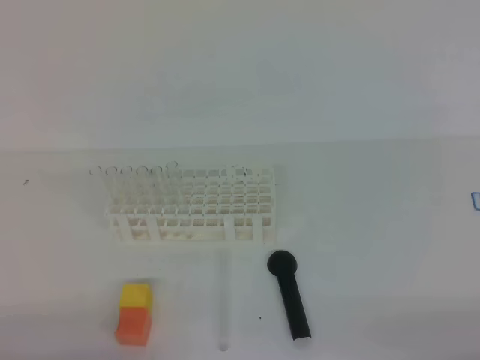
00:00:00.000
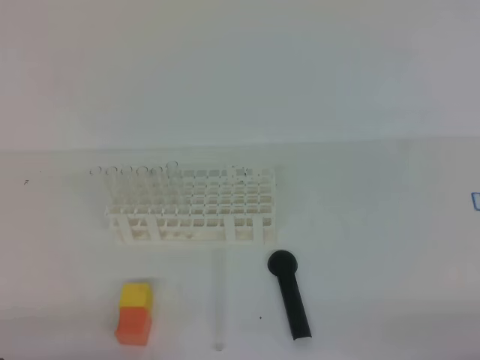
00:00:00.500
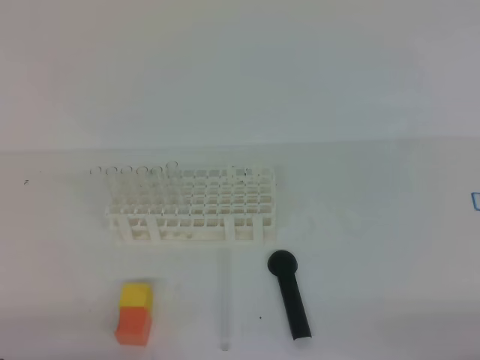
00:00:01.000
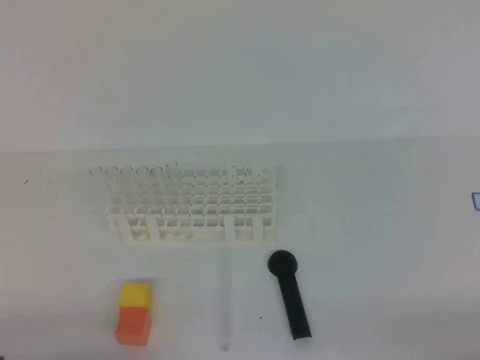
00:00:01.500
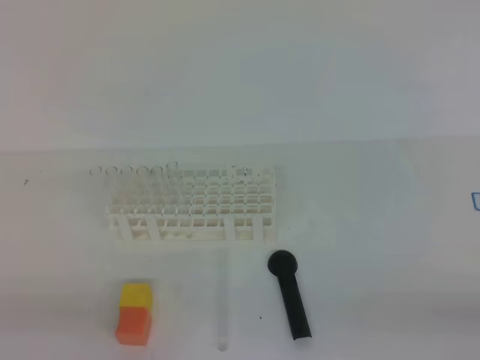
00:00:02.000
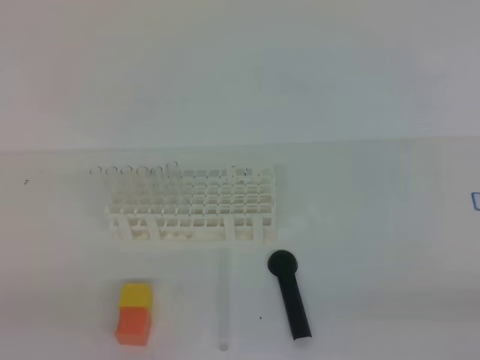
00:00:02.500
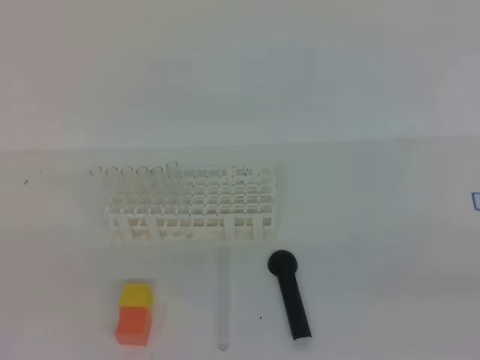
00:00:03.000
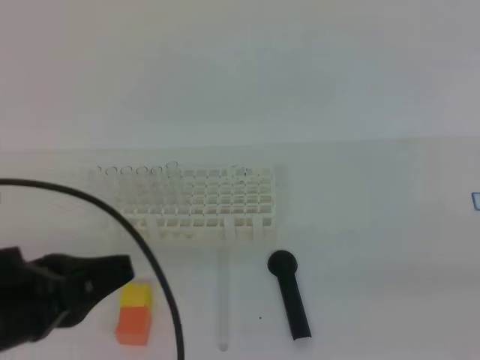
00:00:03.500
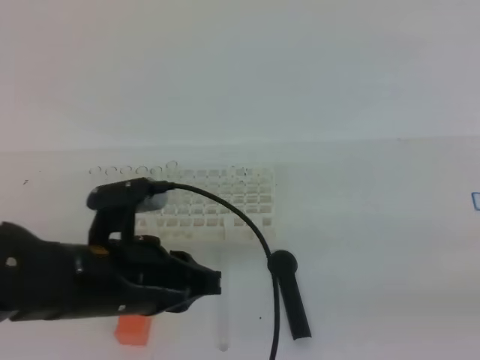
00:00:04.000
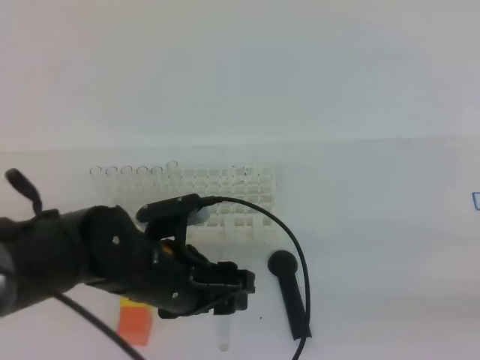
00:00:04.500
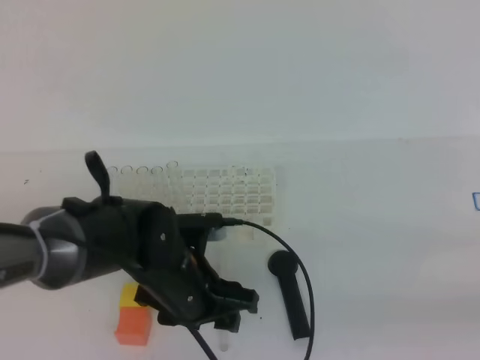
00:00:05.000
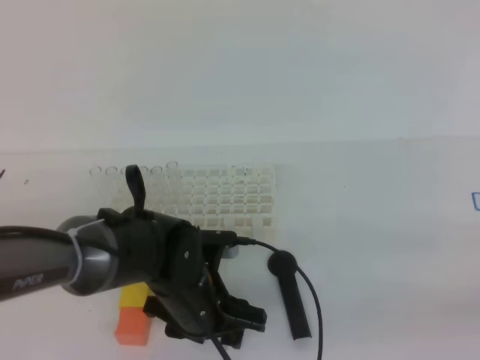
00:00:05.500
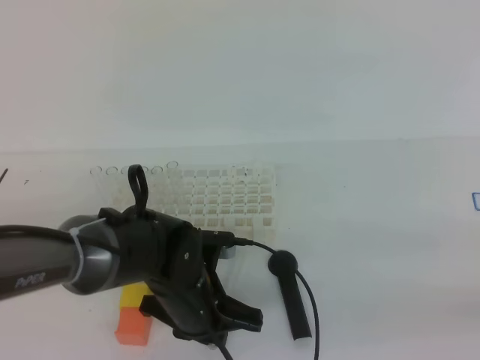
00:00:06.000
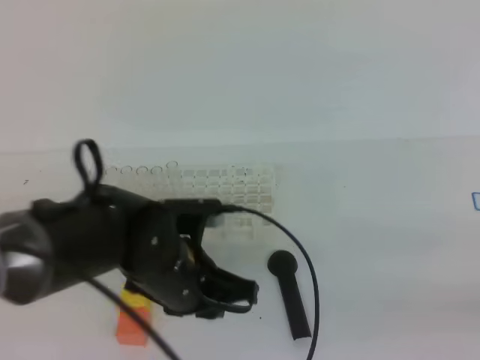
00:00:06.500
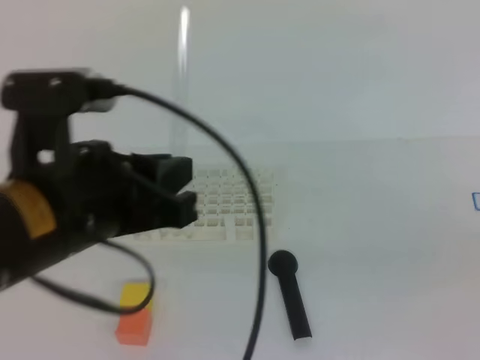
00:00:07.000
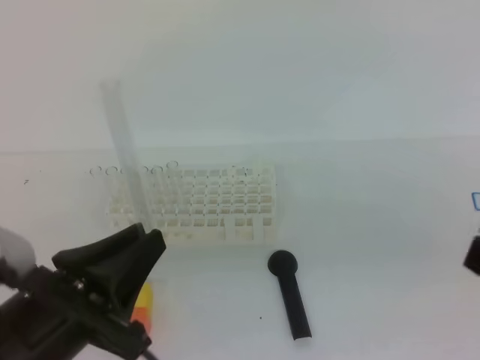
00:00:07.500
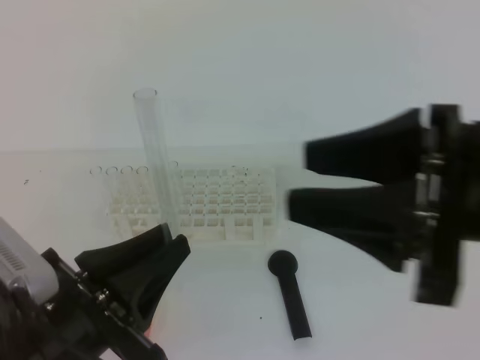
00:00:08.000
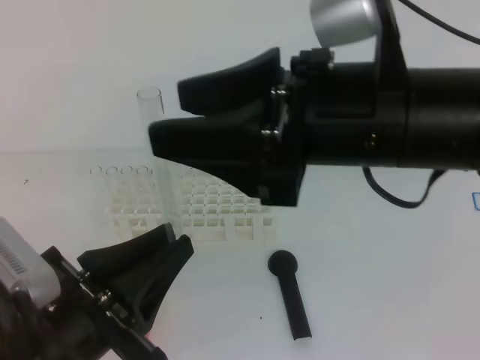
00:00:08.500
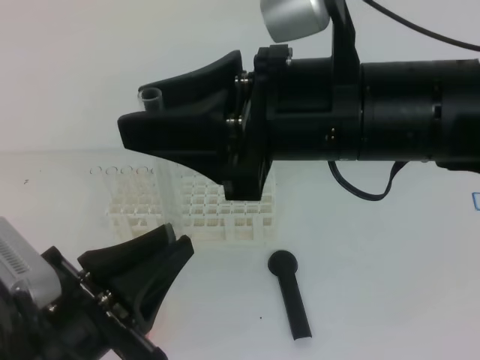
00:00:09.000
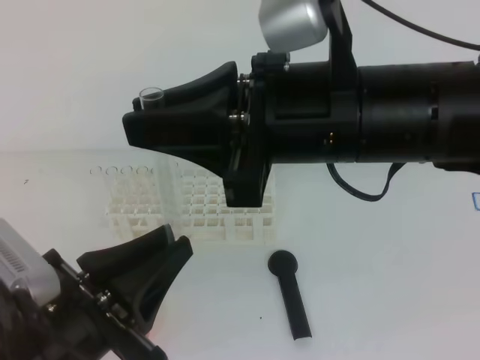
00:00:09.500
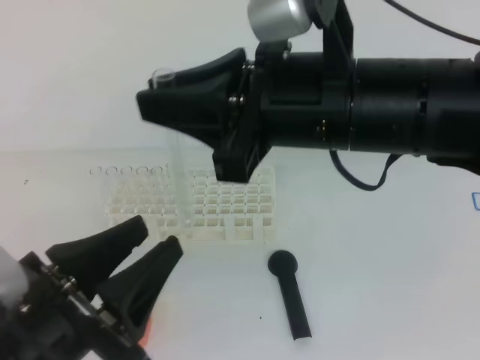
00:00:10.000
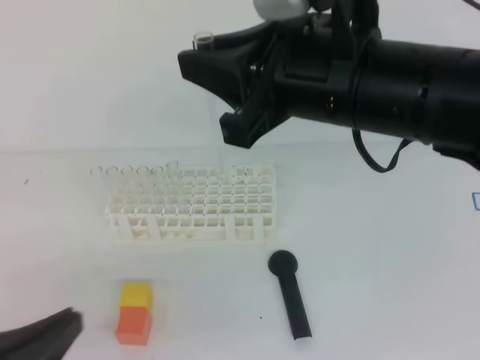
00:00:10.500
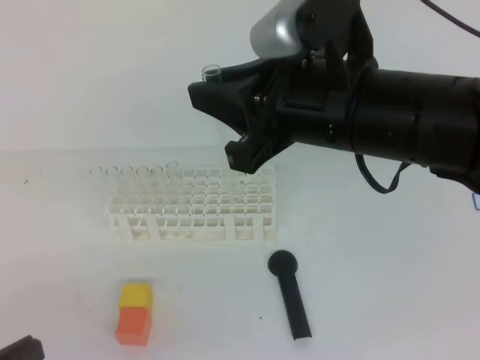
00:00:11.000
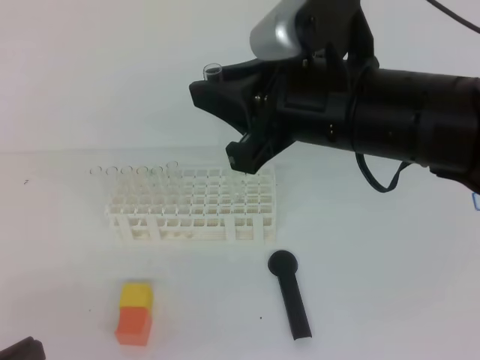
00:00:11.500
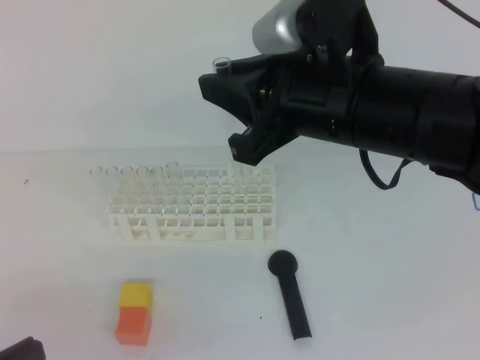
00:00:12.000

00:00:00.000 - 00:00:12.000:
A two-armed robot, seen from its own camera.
00:00:02.000 - 00:00:04.000: The left gripper heads forward and to the right, covering approximately 20 cm, while the right gripper shifts some 10 cm upward.
00:00:04.000 - 00:00:06.000: The right gripper opens. Meanwhile the left gripper moves downward and to the right, some 15 cm, and opens and closes again.
00:00:06.000 - 00:00:08.000: The left gripper heads backward, upward and to the left, covering roughly 20 cm. The right gripper goes some 20 cm to the left, forward and upward, and opens its fingers.
00:00:08.000 - 00:00:10.000: The left gripper opens. The right gripper moves to the left and forward, roughly 15 cm, and closes its fingers.
00:00:10.000 - 00:00:12.000: The left gripper heads to the left and backward, covering some 10 cm, and closes its fingers.

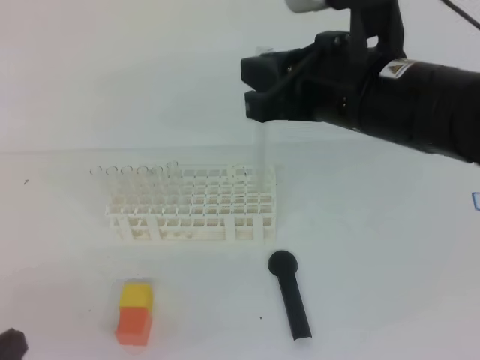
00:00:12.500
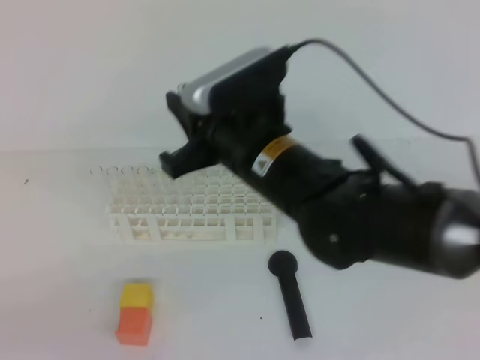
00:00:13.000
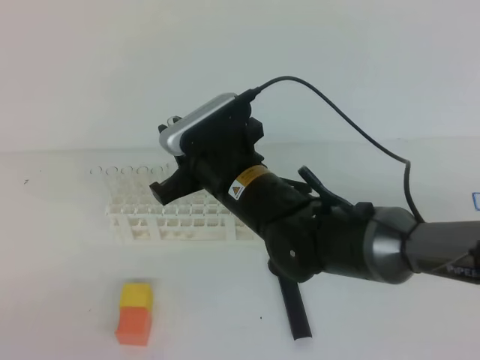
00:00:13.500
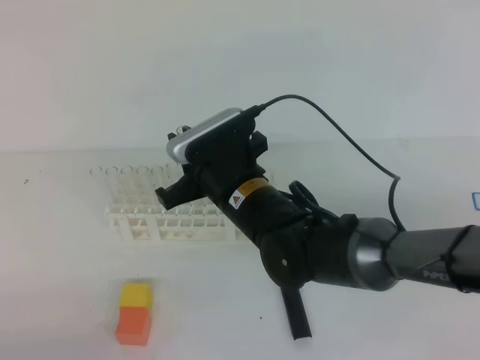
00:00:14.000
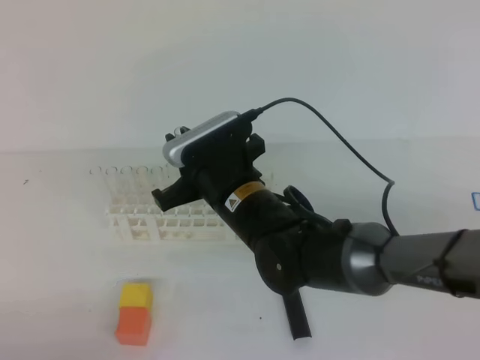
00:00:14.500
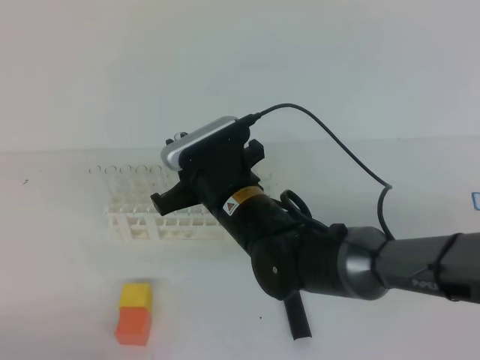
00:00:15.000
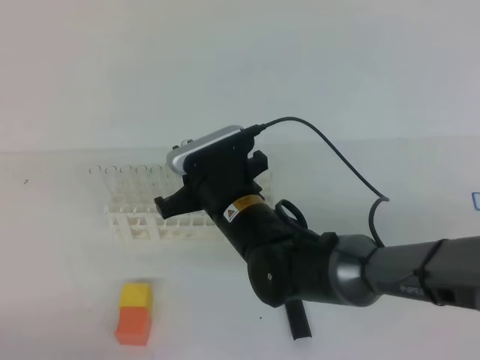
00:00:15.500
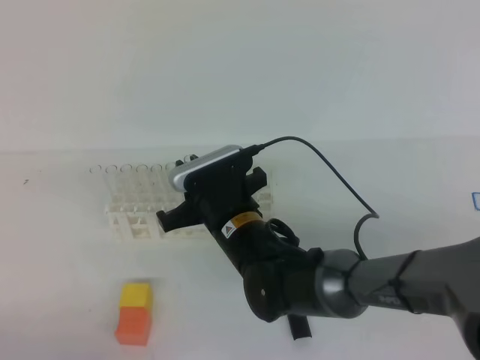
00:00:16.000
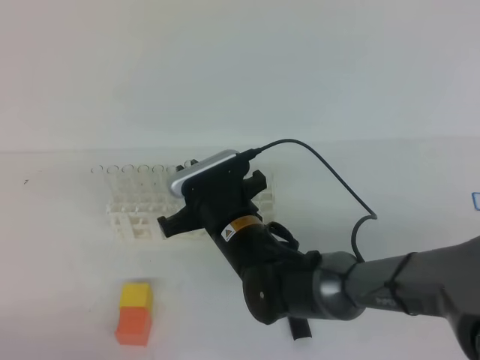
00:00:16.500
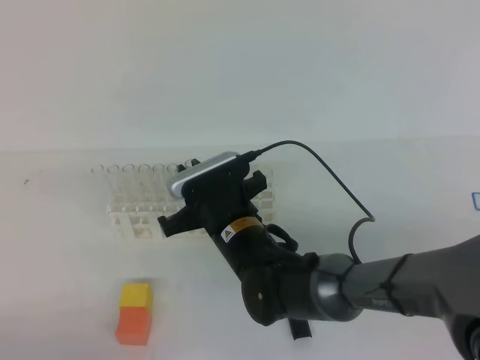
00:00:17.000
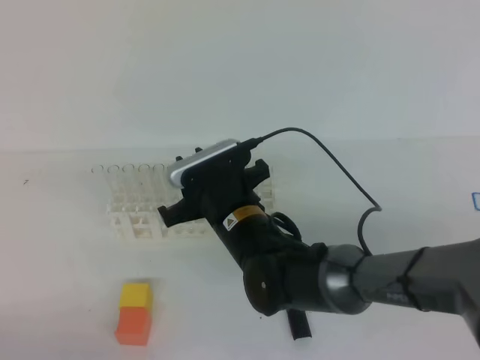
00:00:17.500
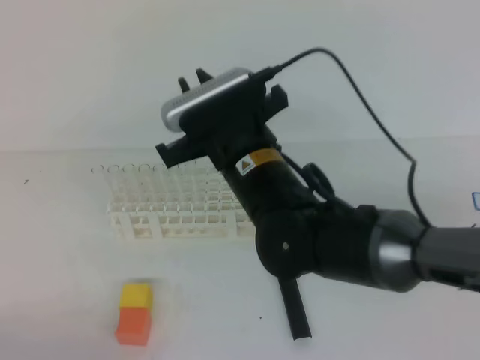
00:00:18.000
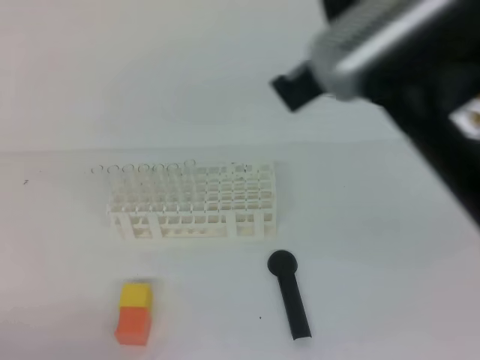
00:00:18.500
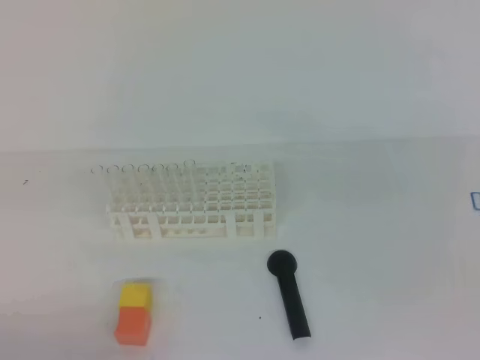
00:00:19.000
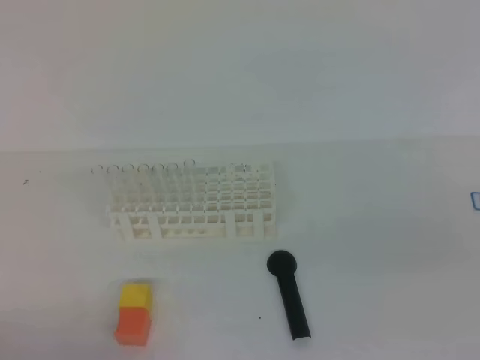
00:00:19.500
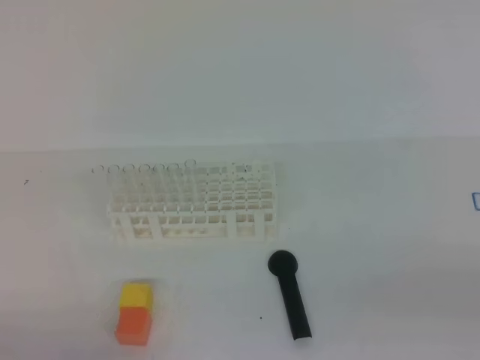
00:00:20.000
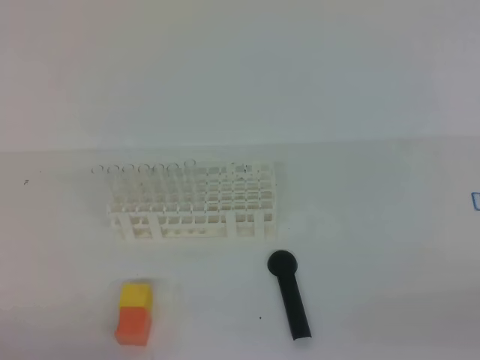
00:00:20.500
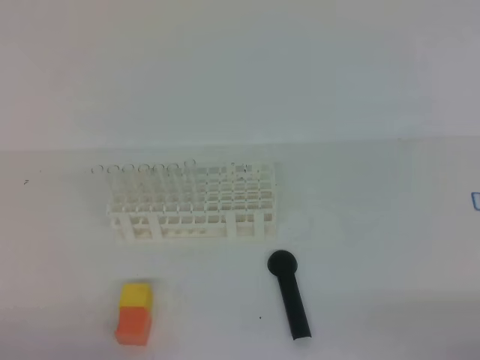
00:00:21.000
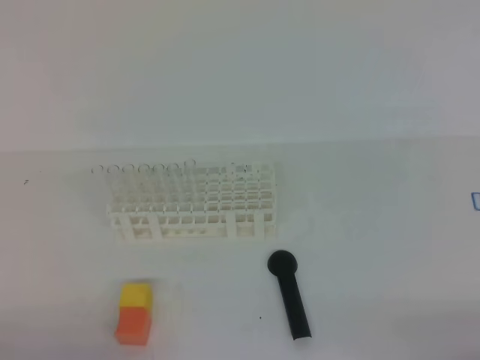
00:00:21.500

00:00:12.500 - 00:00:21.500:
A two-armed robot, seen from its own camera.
00:00:12.500 - 00:00:14.500: The right gripper travels downward and to the left by approximately 20 cm, while the left gripper moves downward, some 10 cm.
00:00:14.500 - 00:00:17.000: The right gripper travels downward by some 5 cm.
00:00:17.000 - 00:00:19.500: The right gripper goes some 40 cm to the right, backward and upward.
